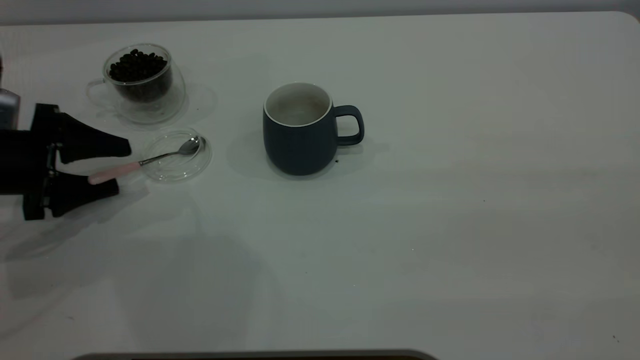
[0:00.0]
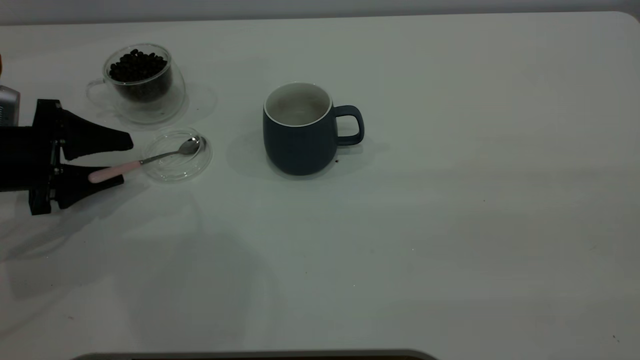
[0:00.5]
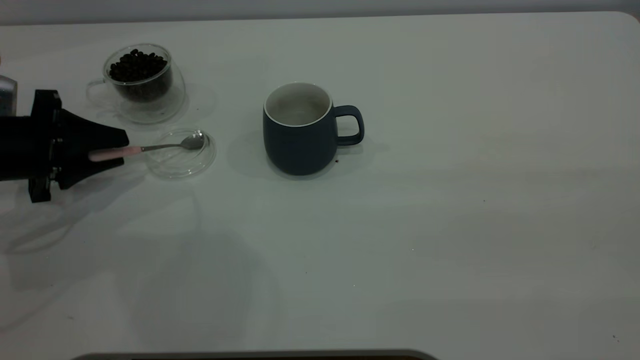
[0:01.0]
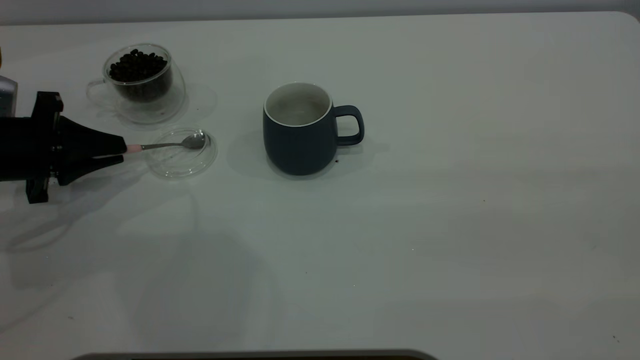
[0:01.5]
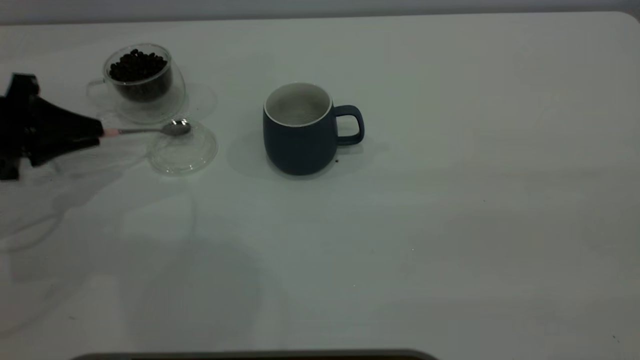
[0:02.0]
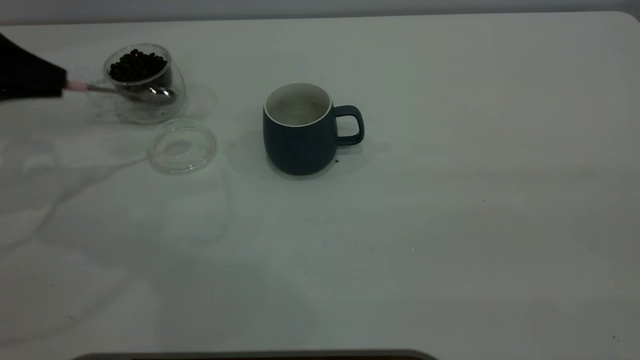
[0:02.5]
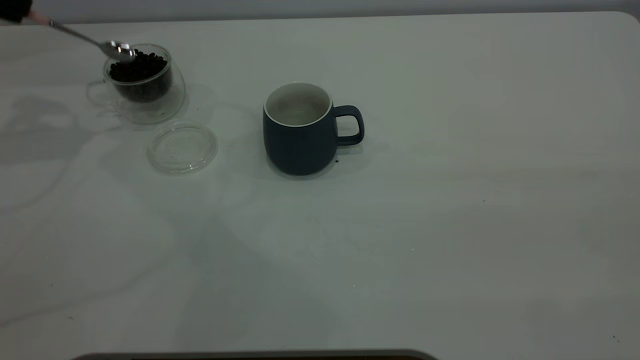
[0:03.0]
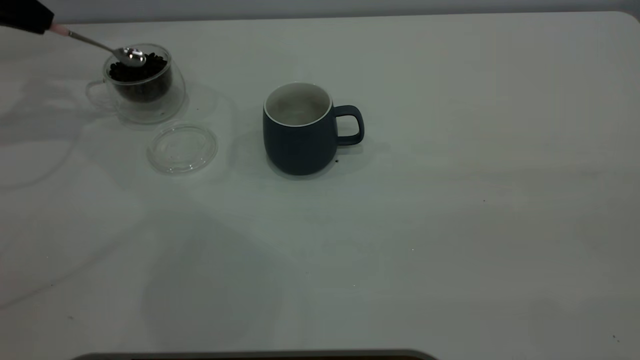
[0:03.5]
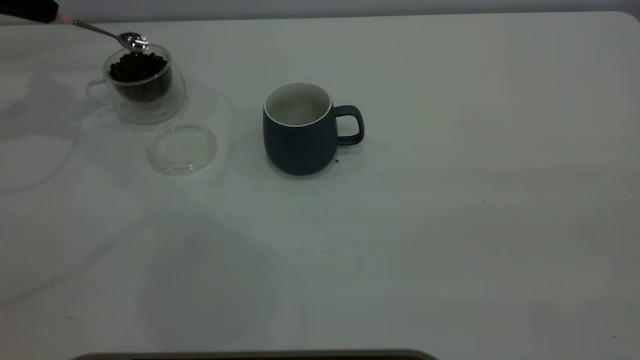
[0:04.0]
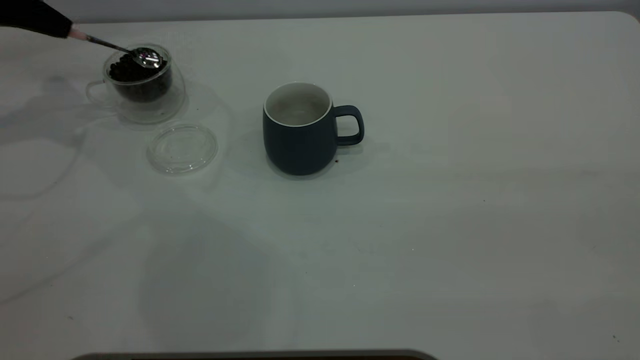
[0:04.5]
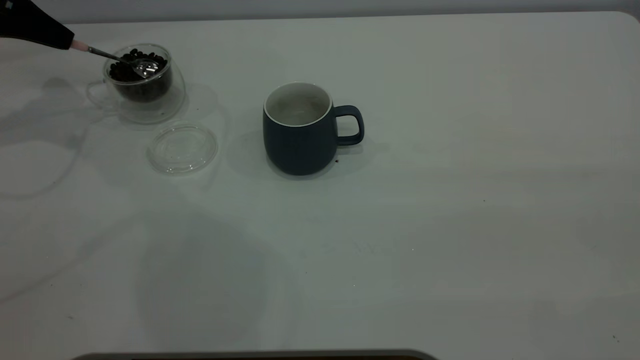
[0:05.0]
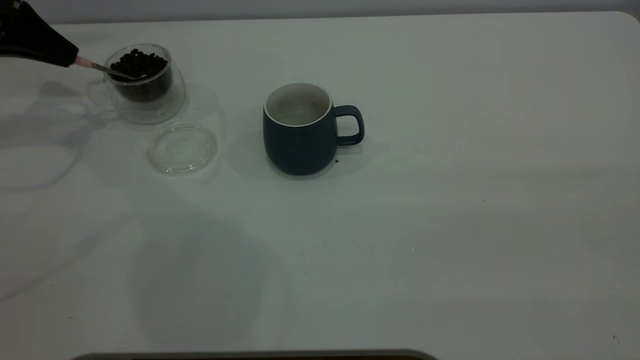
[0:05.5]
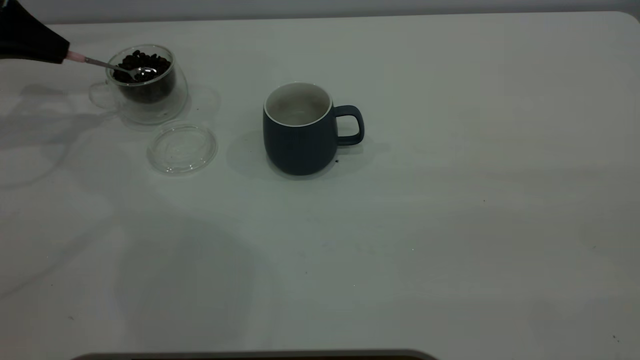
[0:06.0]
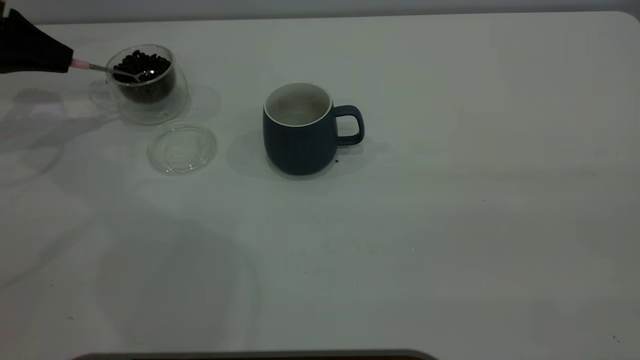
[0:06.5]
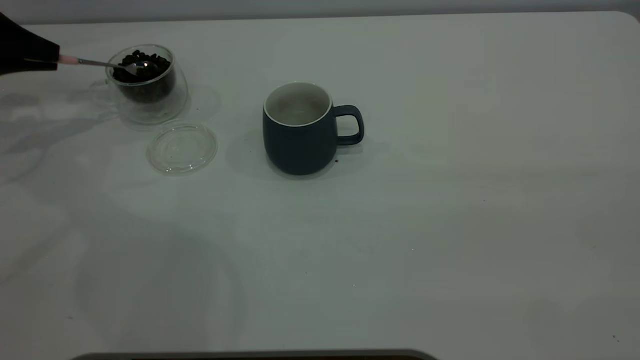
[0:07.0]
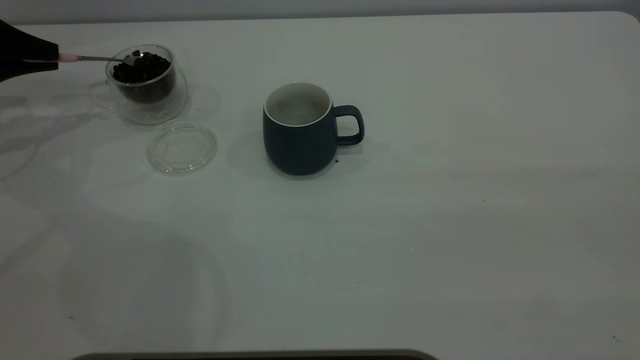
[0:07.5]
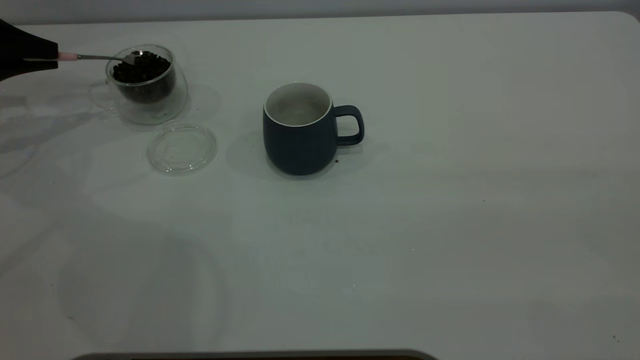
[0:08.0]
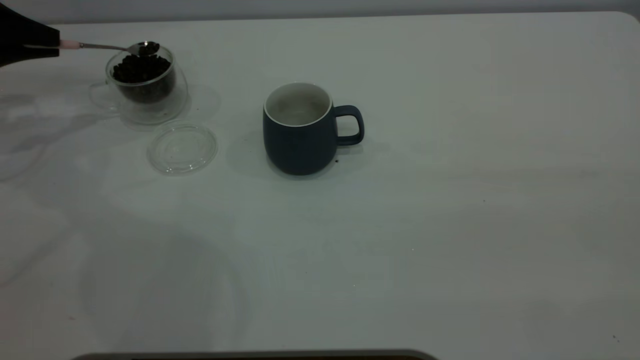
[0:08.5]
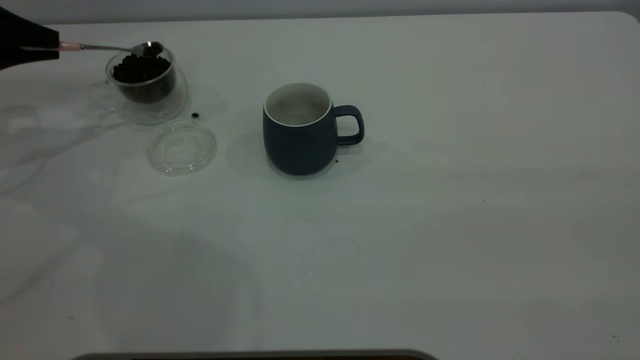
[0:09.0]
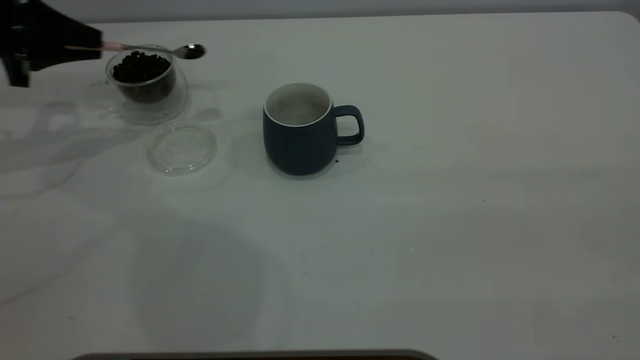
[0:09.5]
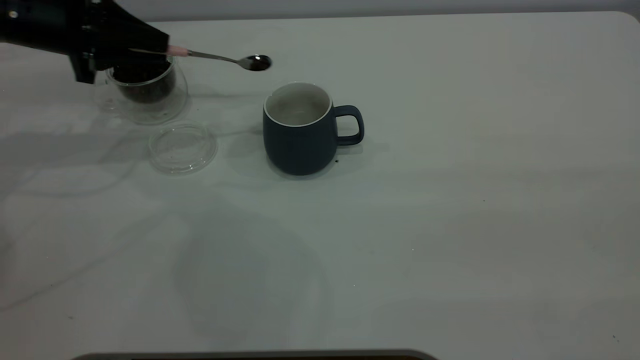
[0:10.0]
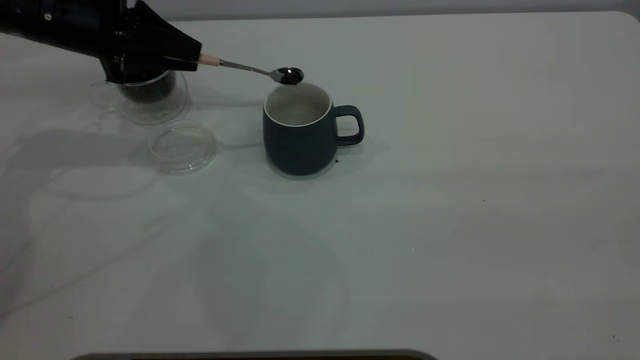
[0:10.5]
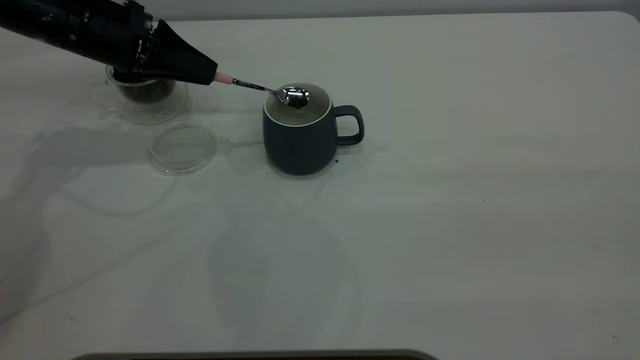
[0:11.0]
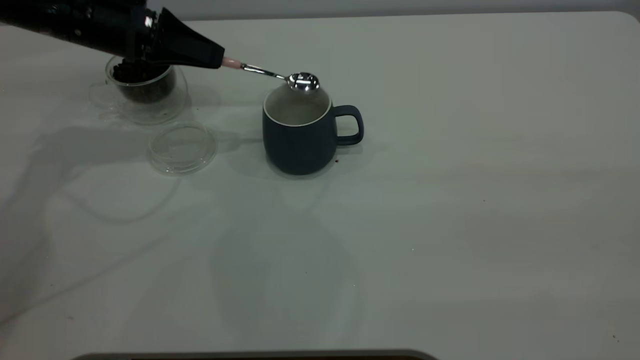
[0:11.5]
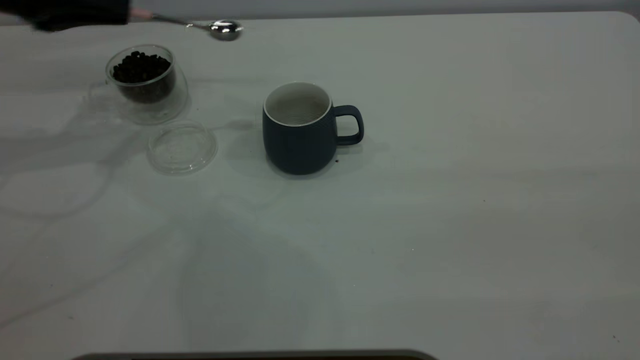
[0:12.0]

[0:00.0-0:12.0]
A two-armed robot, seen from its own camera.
Task of the whole recording: the right gripper place the grey cup in the center of the table, the left gripper take the pink spoon from the cup lid and scoop out the coffee beans from the coffee cup and put them into the grey cup, the left gripper put the spoon back into the cup lid.
Step, 0:00.0 to 0:02.0: Pick up the spoon.
Step, 0:02.5 to 0:11.5: Scoop a spoonful of beans into the cup.
0:00.0 to 0:02.0: The left gripper closes.
0:02.0 to 0:04.0: The left gripper heads forward and upward, covering some 20 cm.
0:04.0 to 0:06.0: There are only small adjustments of the grippers.
0:06.0 to 0:08.0: The left gripper ends up about 5 cm from where it was.
0:08.0 to 0:10.0: The left gripper shifts approximately 15 cm to the right.
0:10.0 to 0:12.0: The left gripper ends up roughly 5 cm from where it was.

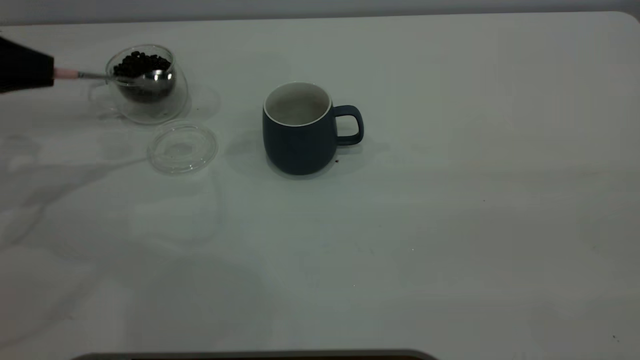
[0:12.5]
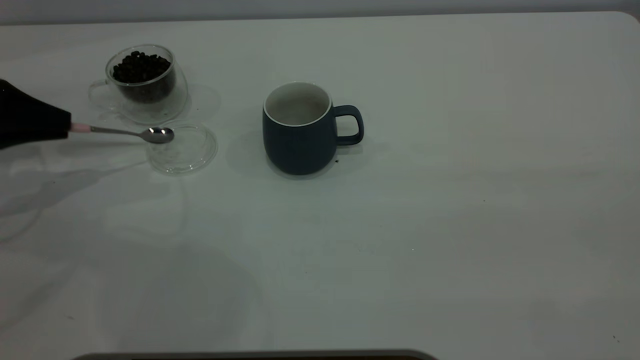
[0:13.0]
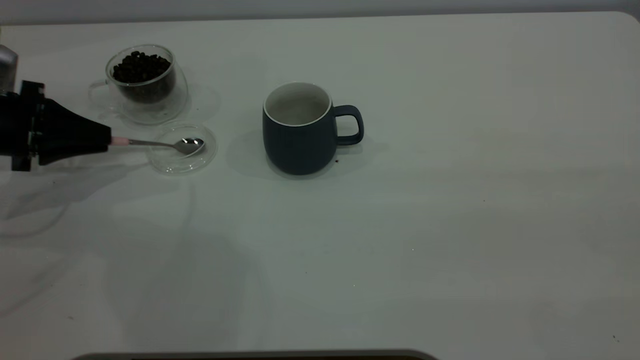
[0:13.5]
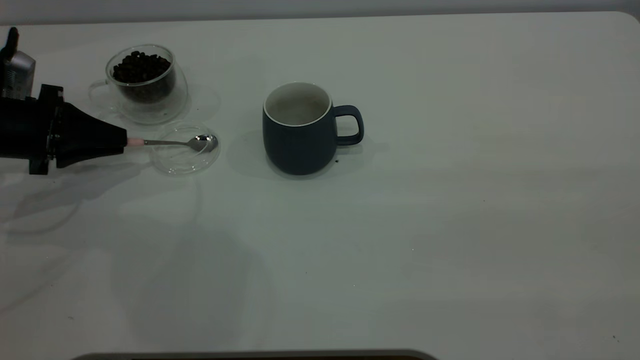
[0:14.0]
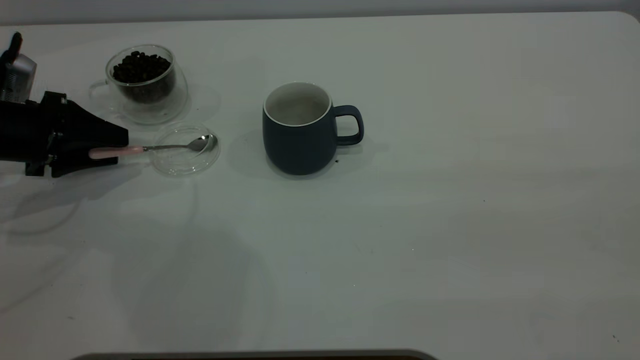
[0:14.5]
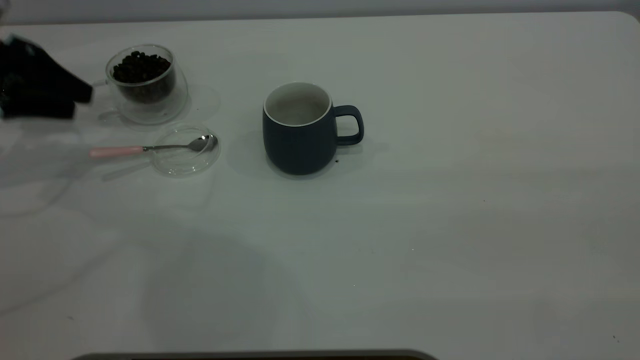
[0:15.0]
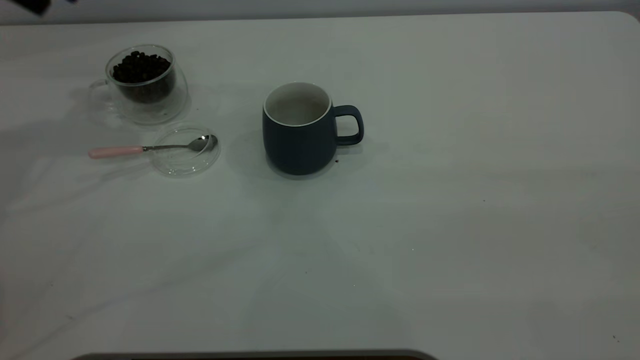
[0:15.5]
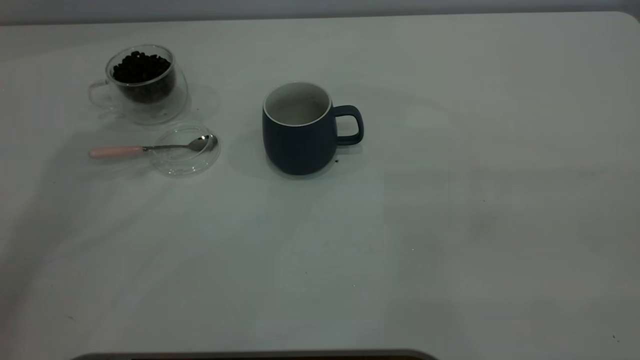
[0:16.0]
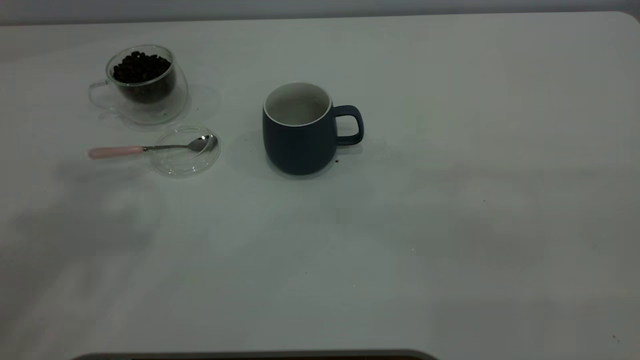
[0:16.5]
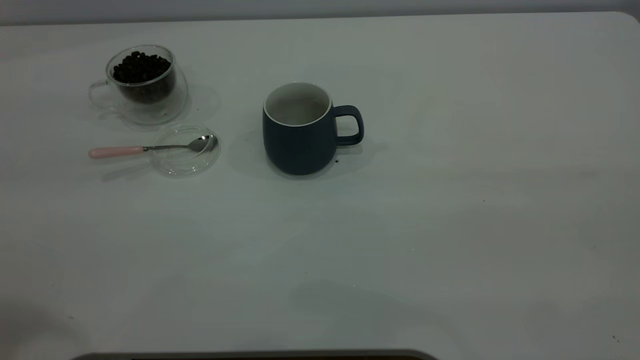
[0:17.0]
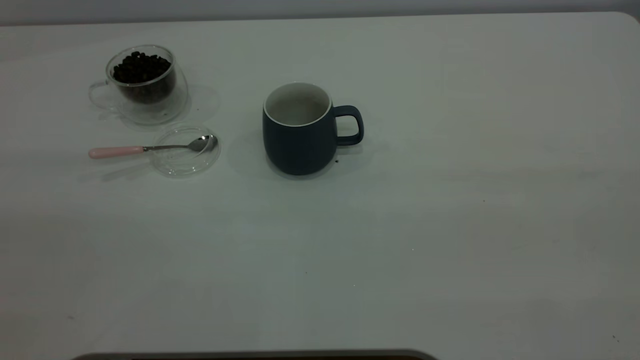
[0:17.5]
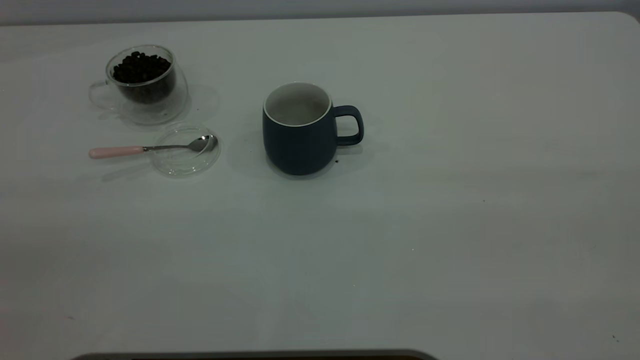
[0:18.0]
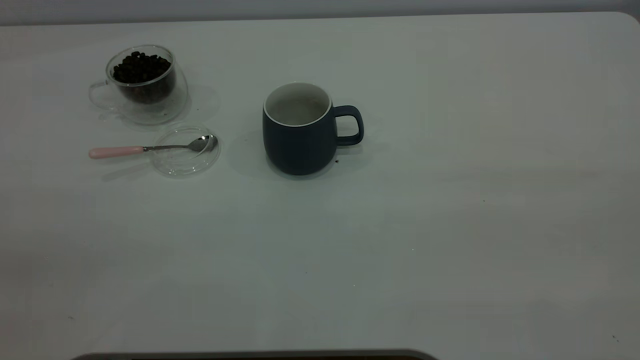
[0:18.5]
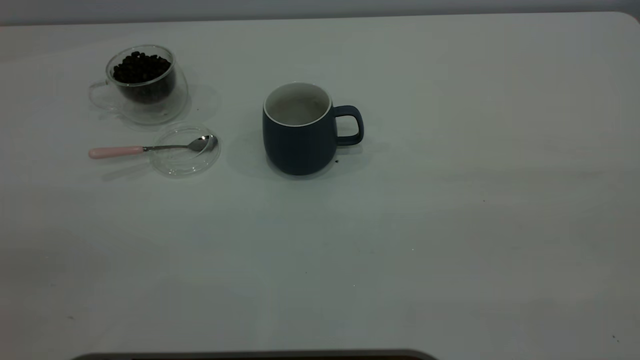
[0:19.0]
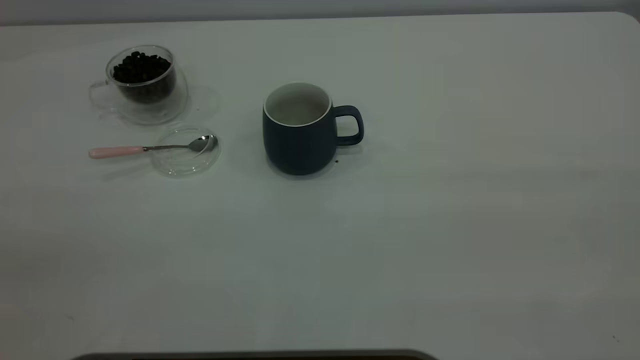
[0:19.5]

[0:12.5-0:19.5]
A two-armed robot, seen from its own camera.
Task of the whole recording: the right gripper place the grey cup in the center of the table, the left gripper take the pink spoon from the cup lid and scoop out the coffee beans from the coffee cup and put them into the grey cup, the left gripper put the spoon back into the cup lid.
Step, 0:12.5 to 0:14.5: Place the spoon back in its original place.
0:12.5 to 0:14.5: The left gripper heads downward, covering about 10 cm, and opens.
0:14.5 to 0:16.0: The left gripper is displaced upward by some 35 cm.

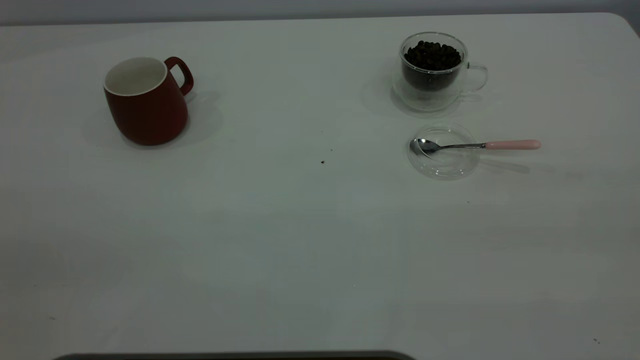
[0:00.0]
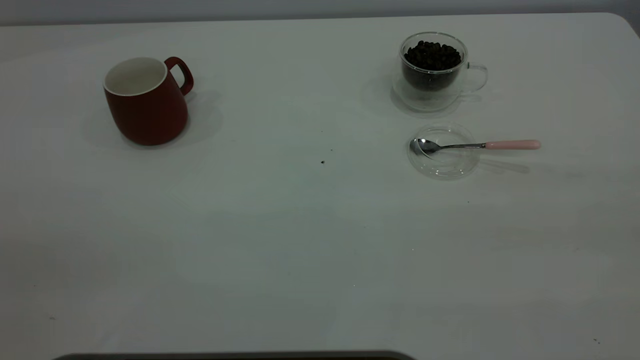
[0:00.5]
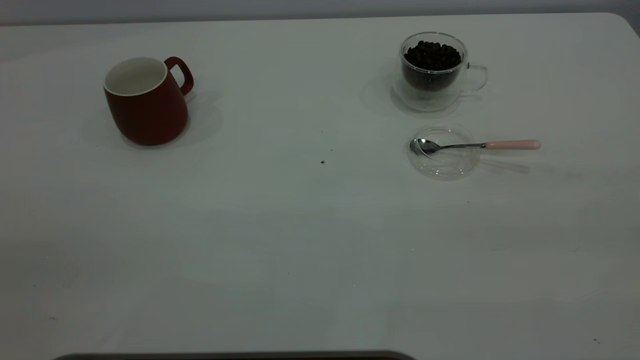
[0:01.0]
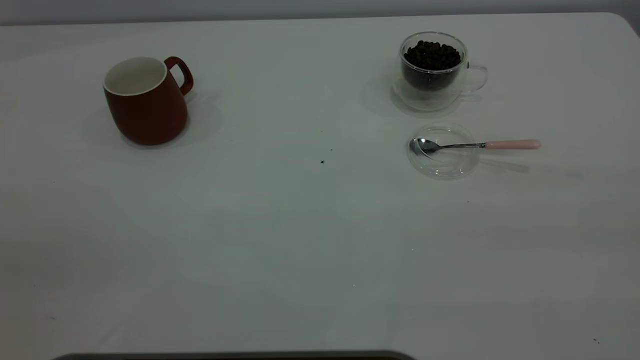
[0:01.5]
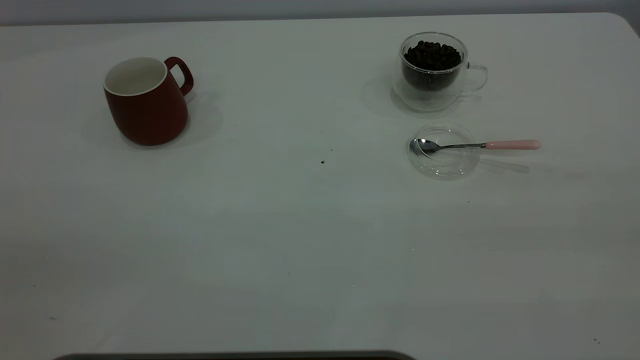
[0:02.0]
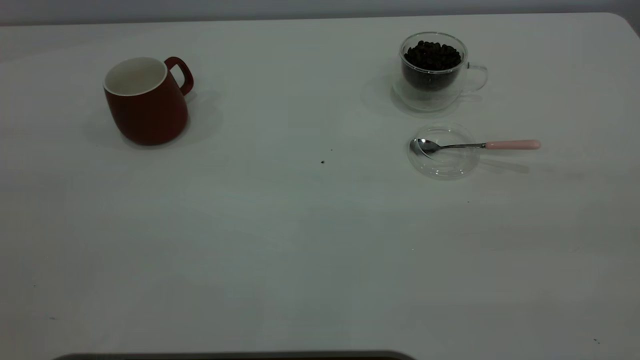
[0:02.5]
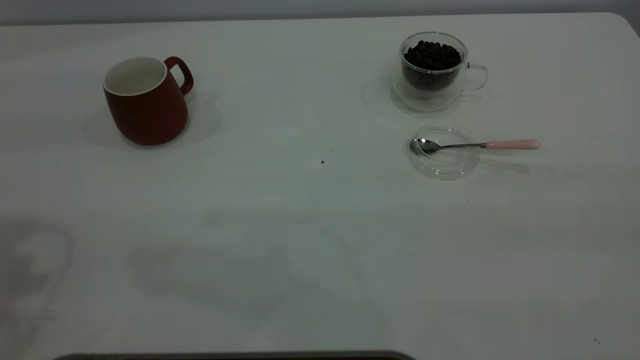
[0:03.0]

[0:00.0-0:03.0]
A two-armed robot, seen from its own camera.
Task of the whole recording: the left gripper place the red cup in the center of the table, the right gripper take the pink spoon from the cup lid and scoop out the coffee beans from the coffee cup and put them into the red cup, the right gripper put the spoon back into the cup lid.
0:00.0 to 0:01.5: The two grippers keep their place.
